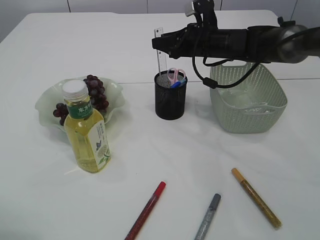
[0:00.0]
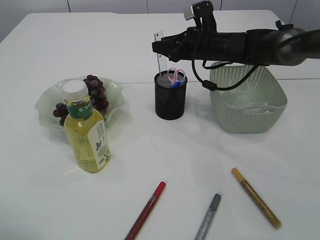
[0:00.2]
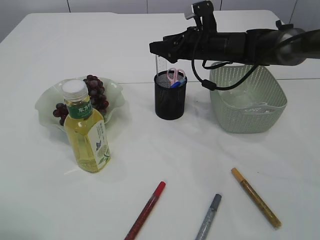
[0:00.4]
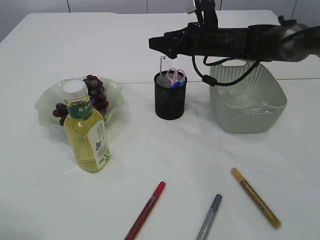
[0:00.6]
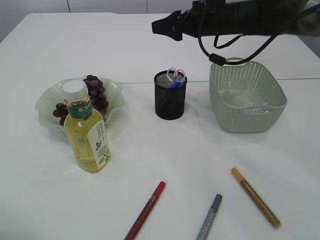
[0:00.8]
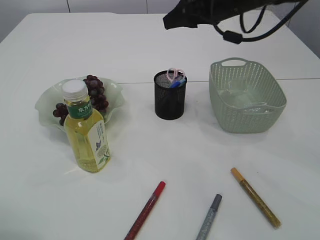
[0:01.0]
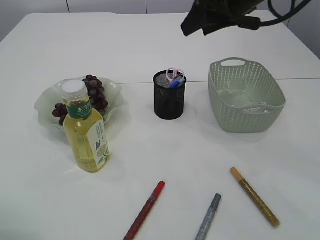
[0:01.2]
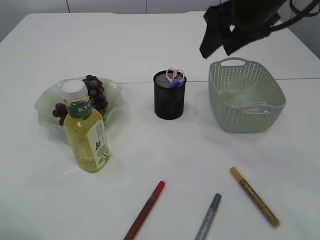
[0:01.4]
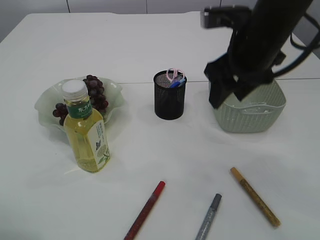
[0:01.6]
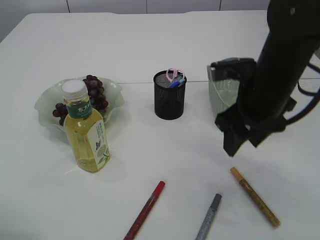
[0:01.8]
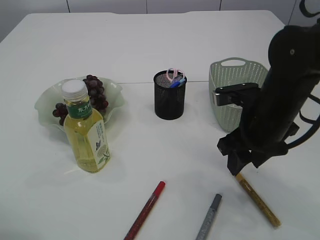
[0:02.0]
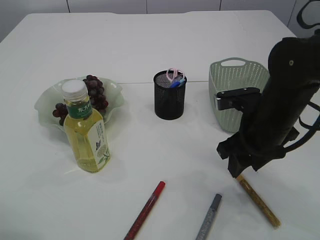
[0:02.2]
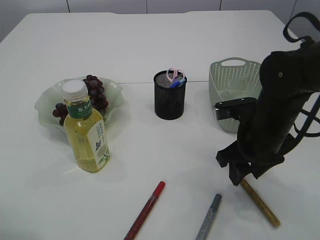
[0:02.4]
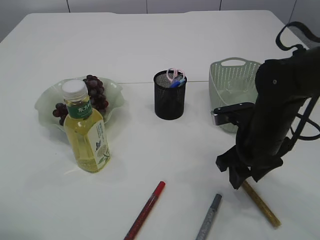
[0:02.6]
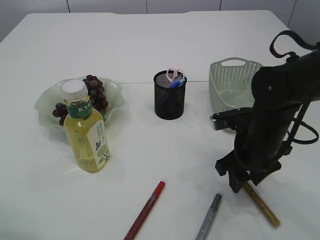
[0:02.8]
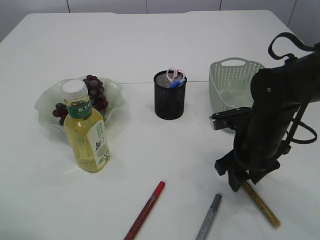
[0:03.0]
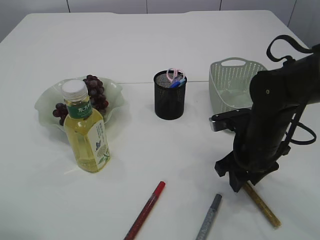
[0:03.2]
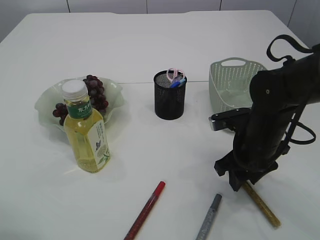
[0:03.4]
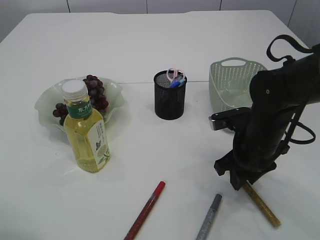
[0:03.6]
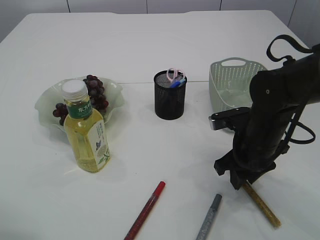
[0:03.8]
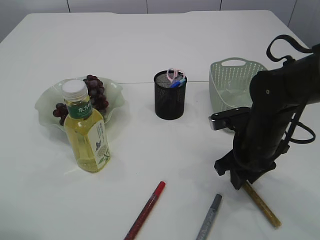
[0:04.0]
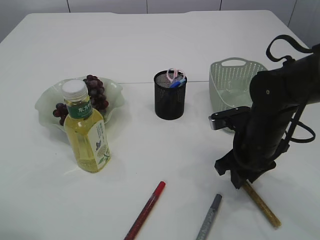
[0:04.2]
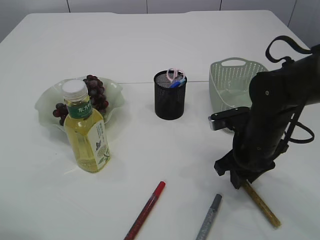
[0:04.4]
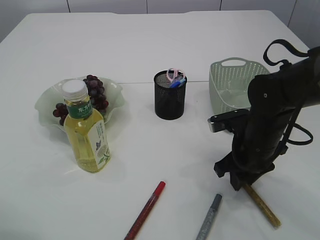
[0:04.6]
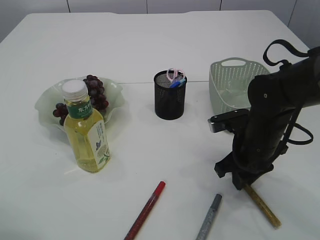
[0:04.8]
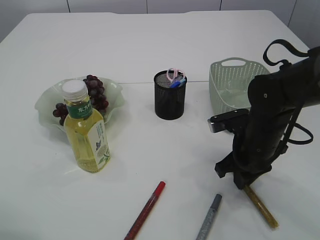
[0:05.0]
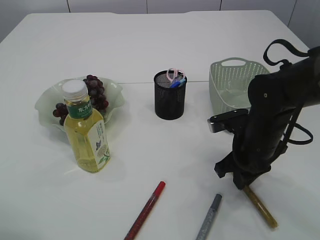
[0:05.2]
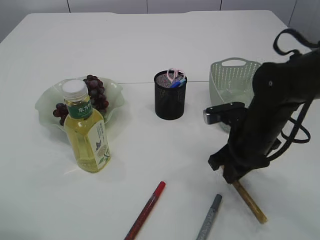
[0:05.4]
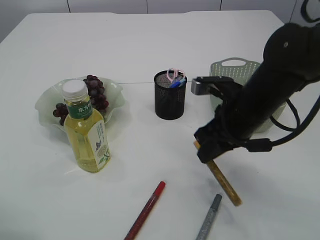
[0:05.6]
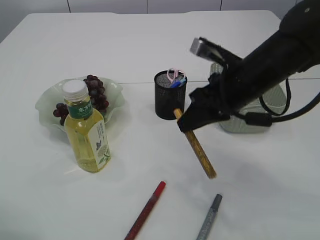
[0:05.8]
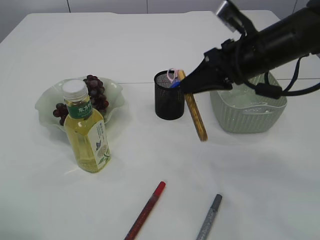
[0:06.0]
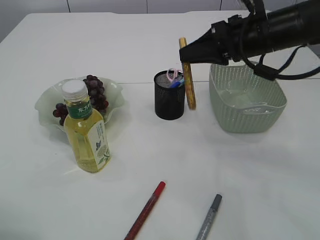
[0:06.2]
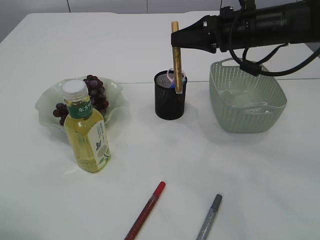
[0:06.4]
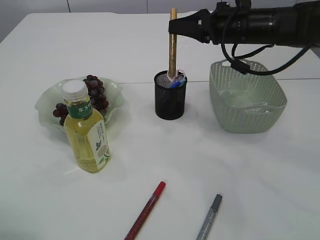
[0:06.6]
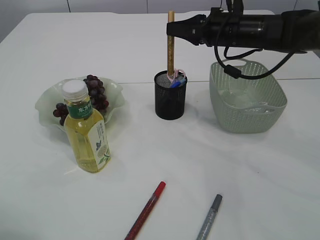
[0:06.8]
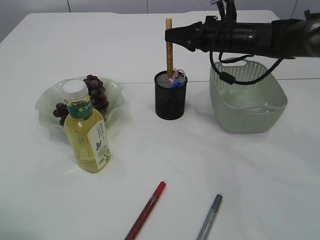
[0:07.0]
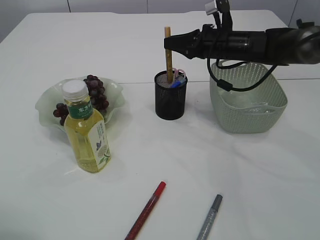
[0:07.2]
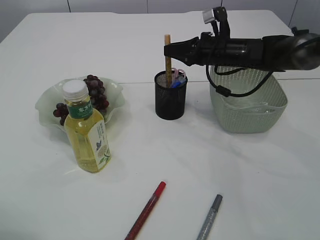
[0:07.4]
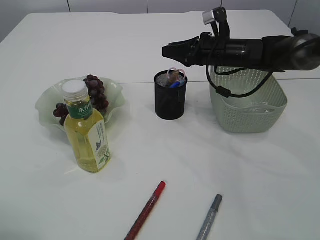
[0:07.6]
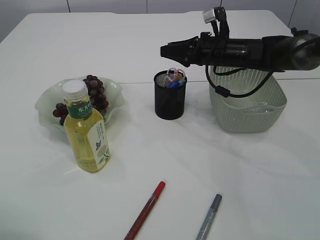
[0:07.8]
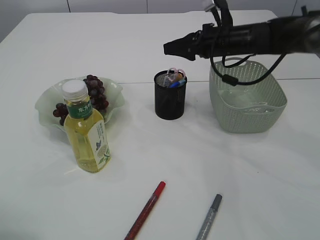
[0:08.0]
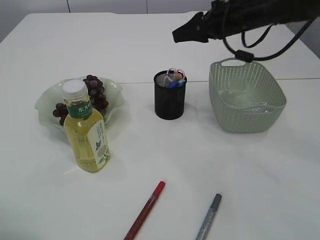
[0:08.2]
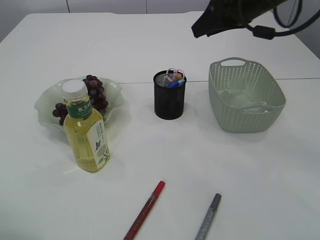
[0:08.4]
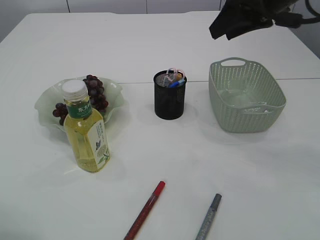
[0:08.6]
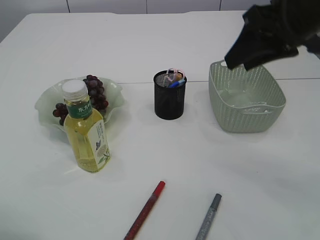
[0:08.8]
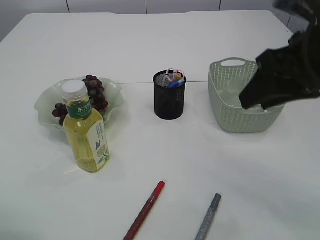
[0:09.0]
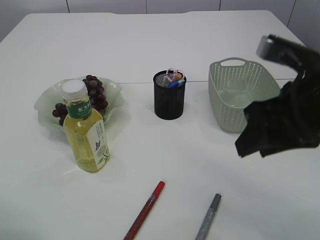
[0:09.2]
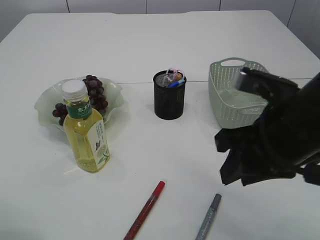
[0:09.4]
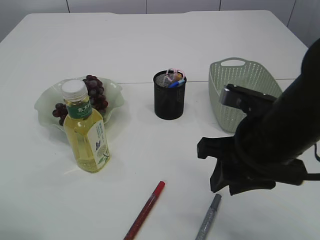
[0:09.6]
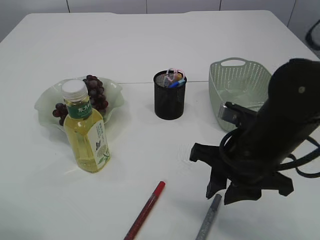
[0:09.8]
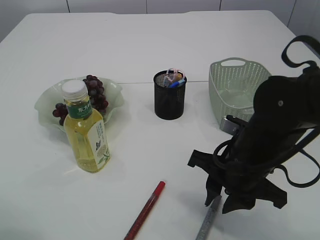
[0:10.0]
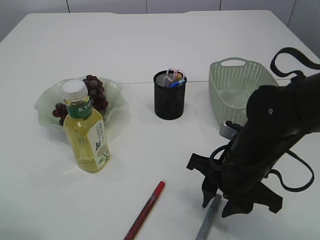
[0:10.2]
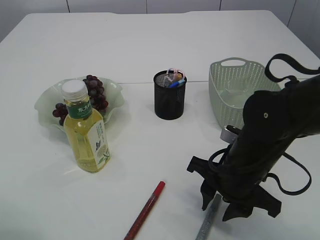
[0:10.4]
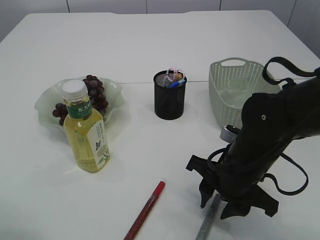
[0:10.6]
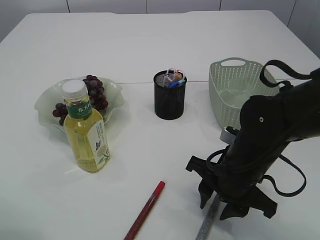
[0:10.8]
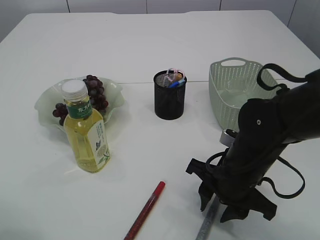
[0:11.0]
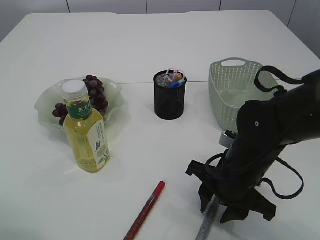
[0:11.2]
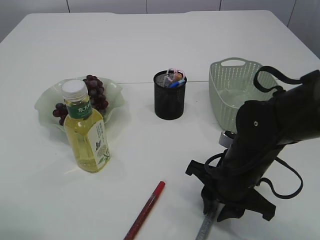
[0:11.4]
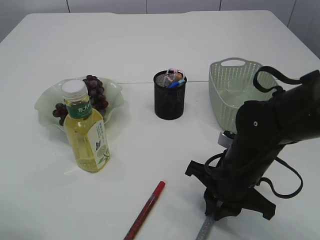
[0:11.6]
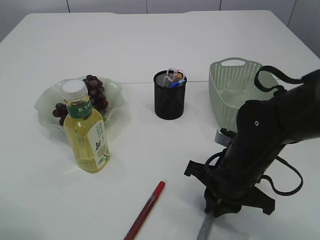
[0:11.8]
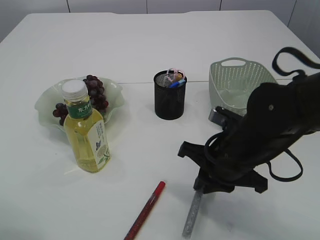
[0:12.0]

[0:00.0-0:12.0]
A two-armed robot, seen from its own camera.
Step, 0:00.8 to 0:05.6: pick up the yellow glue.
Step, 0:05.8 to 0:08.2: place the yellow glue into the pen holder.
0:00.0 to 0:01.6: The right gripper goes about 20 cm backward and upward.
0:01.6 to 0:03.0: The right gripper moves downward, some 15 cm.
0:03.0 to 0:04.4: Both grippers stay about where they are.
0:04.4 to 0:06.0: The right gripper shifts some 15 cm upward.
0:06.0 to 0:07.6: The right gripper is displaced forward and downward by roughly 15 cm.
0:07.6 to 0:09.0: The right gripper heads backward and upward, covering about 25 cm.
0:09.0 to 0:10.4: The right gripper heads downward and to the left, covering approximately 20 cm.
0:10.4 to 0:12.0: The right gripper closes its fingers.

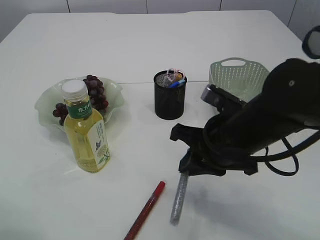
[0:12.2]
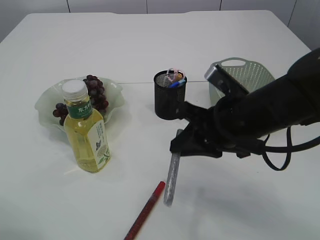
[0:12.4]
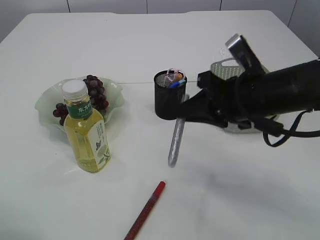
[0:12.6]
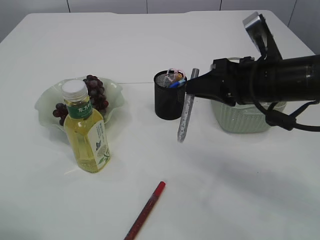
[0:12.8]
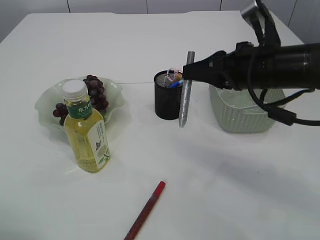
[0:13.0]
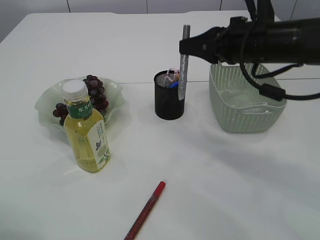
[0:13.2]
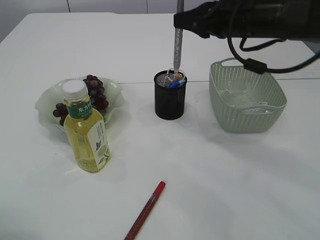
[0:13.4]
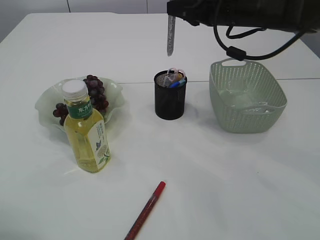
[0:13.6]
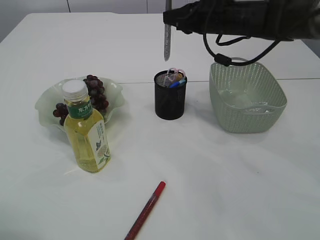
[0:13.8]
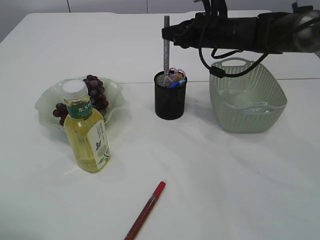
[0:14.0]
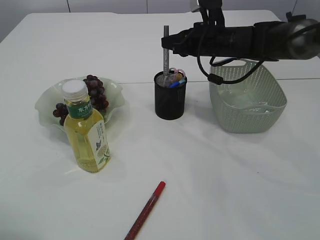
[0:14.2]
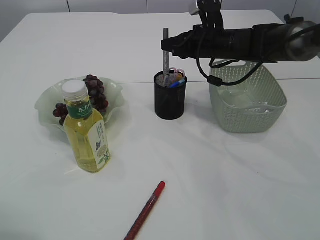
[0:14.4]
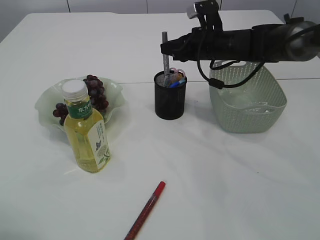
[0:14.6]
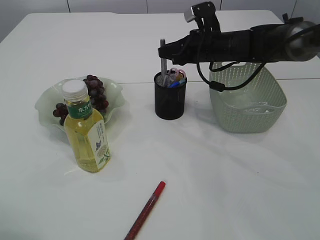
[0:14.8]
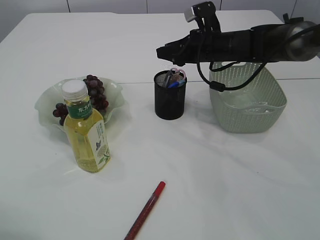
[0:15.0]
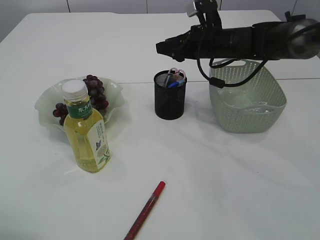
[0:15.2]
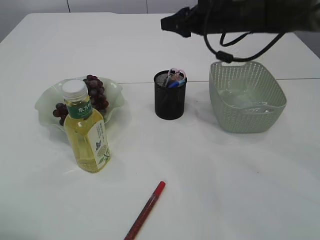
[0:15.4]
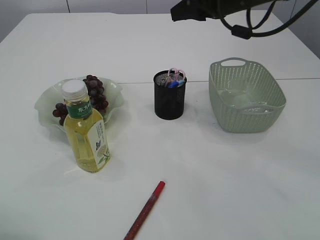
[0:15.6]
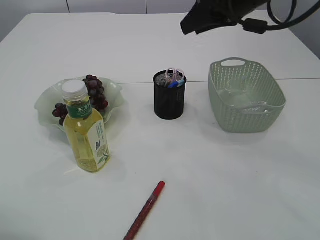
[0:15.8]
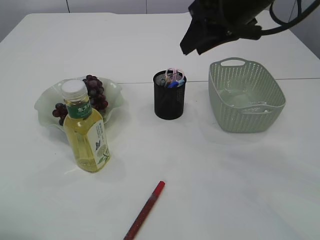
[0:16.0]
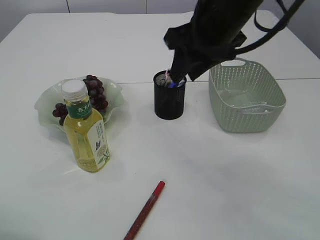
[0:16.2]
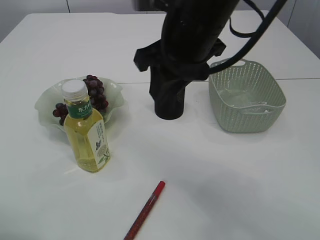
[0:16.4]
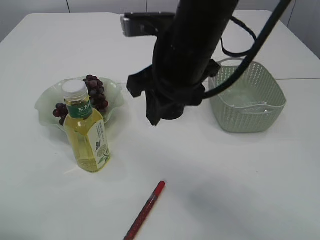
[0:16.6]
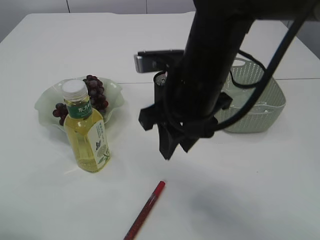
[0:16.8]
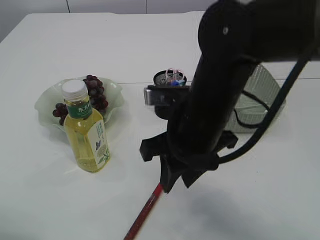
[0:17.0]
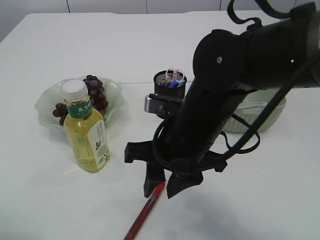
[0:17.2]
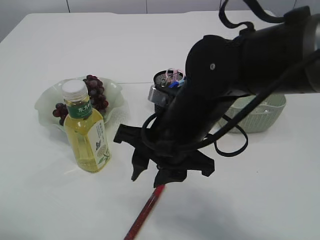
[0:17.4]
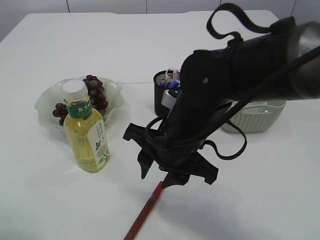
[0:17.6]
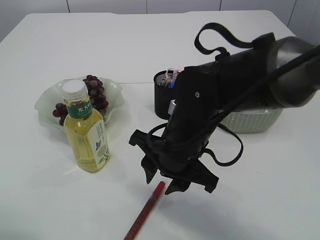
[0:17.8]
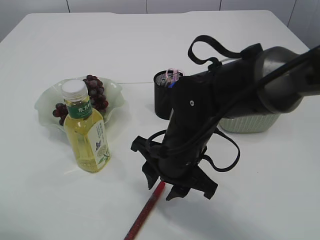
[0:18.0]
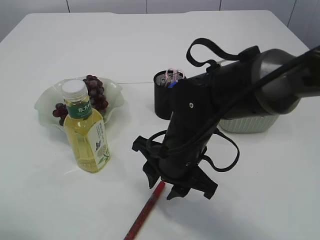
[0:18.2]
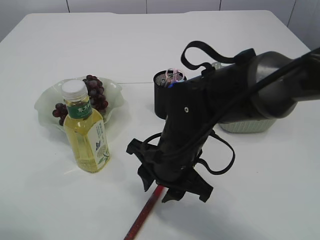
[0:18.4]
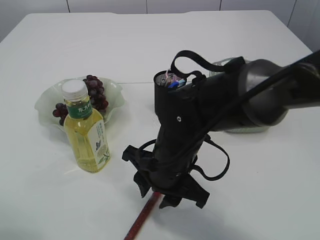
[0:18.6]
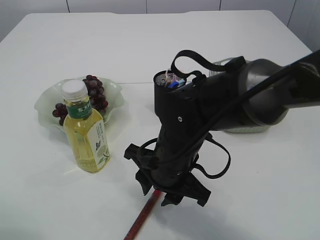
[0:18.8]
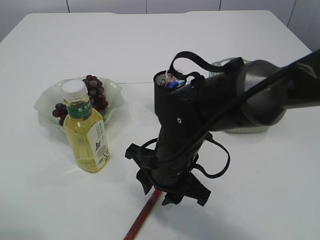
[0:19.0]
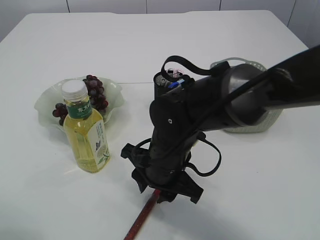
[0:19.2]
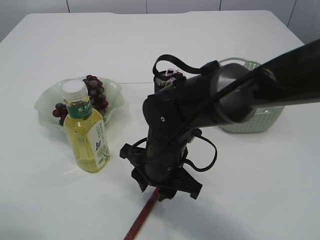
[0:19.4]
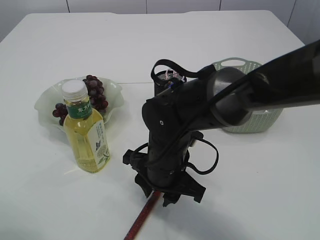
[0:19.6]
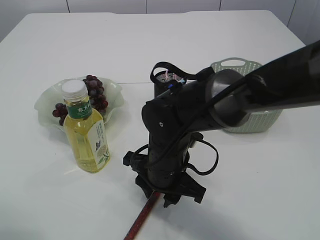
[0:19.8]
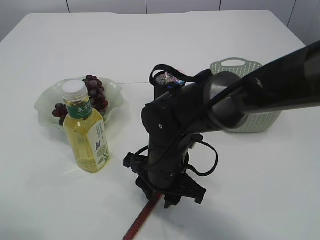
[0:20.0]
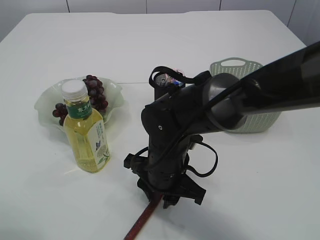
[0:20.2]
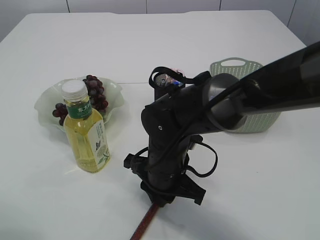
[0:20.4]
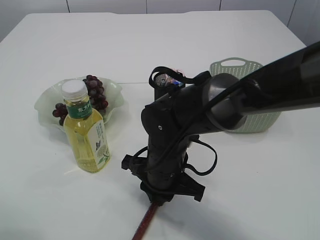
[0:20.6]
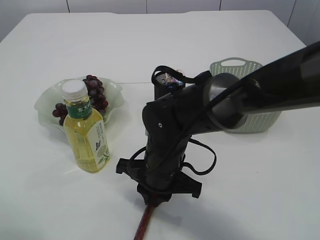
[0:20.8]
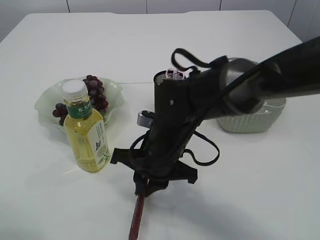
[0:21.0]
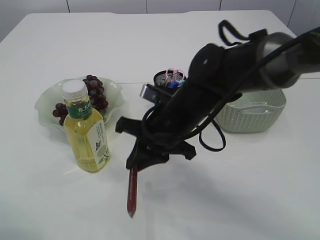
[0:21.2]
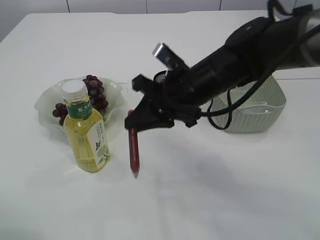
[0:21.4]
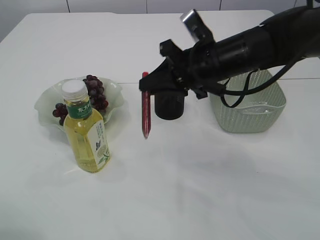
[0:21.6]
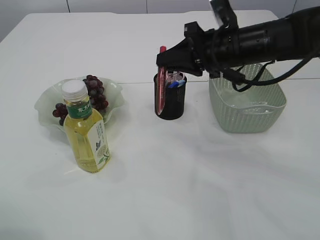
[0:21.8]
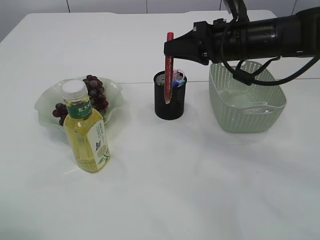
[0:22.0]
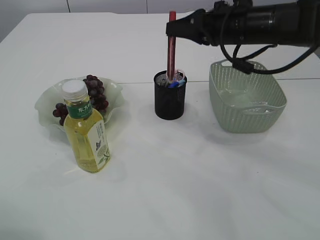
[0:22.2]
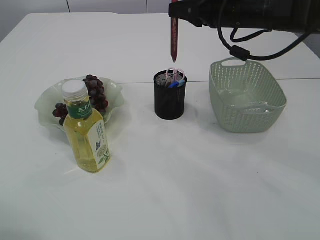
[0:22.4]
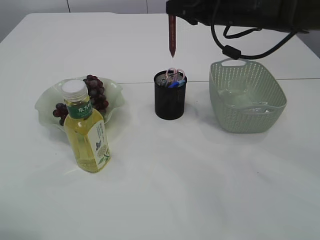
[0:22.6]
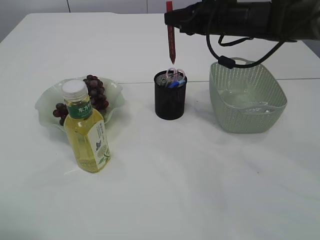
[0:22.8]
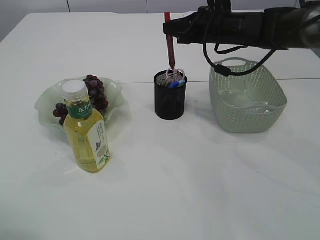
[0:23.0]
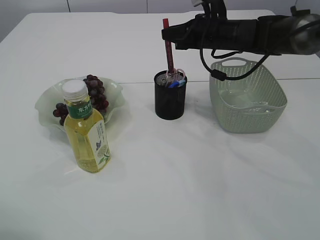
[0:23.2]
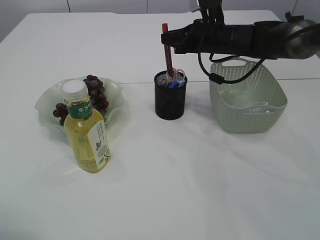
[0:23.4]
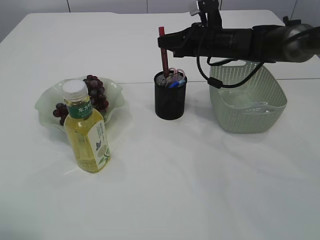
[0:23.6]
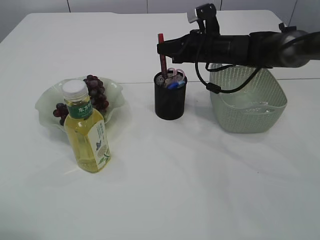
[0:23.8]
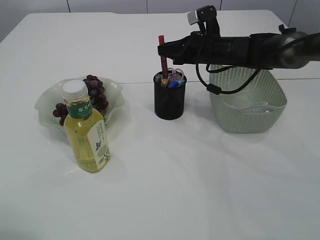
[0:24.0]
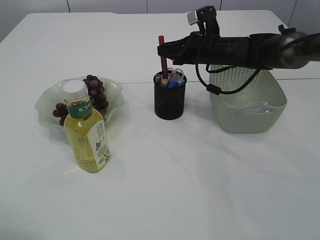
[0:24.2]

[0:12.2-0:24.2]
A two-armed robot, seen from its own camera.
Step, 0:12.6 to 0:14.8: place the silver glue into the pen holder.
Step, 0:15.0 to 0:21.2: pick up the red glue.
0:12.2 to 0:13.8: The right gripper heads forward and upward, covering approximately 25 cm.
0:13.8 to 0:15.2: The right gripper travels downward by approximately 5 cm, and opens up.
0:15.2 to 0:16.6: The right gripper is displaced backward, upward and to the left by some 25 cm.
0:16.6 to 0:18.2: The right gripper shifts approximately 15 cm downward.
0:18.2 to 0:19.8: There are only small adjustments of the grippers.
0:19.8 to 0:21.2: The right gripper moves approximately 5 cm, and closes up.
0:21.2 to 0:22.6: The right gripper shifts approximately 20 cm forward, to the right and upward.
0:22.6 to 0:24.2: The right gripper heads downward, covering approximately 10 cm.
